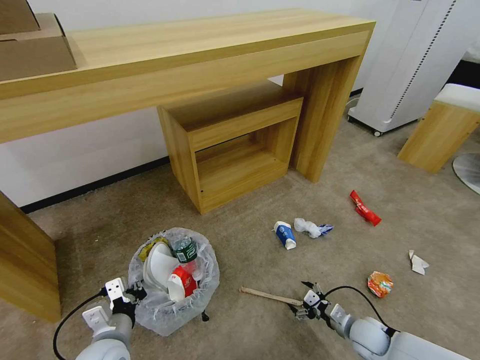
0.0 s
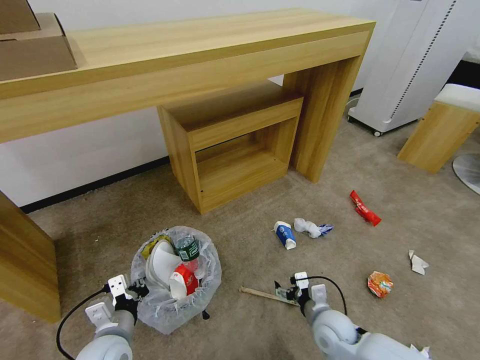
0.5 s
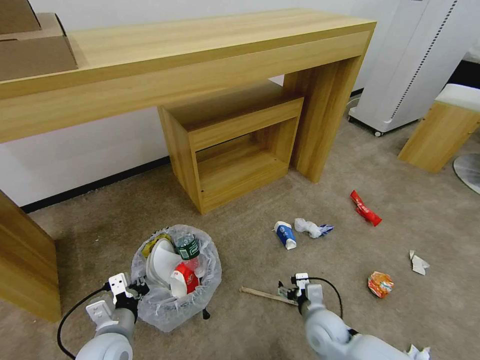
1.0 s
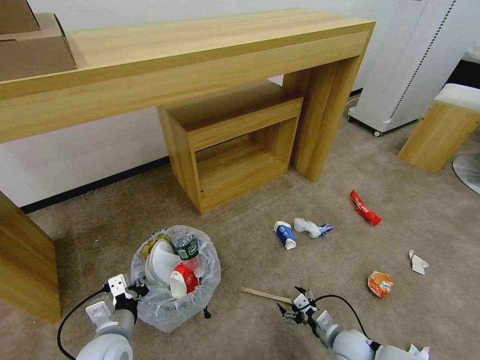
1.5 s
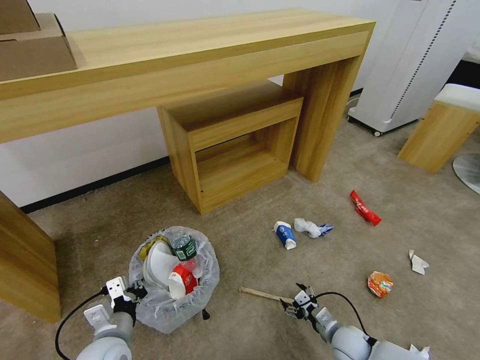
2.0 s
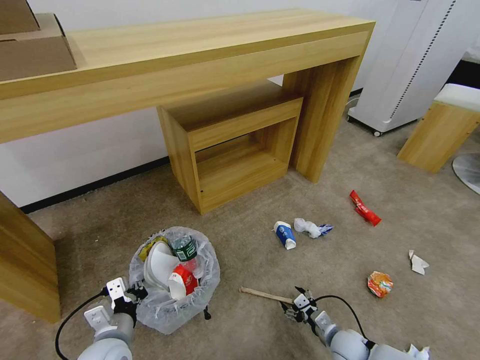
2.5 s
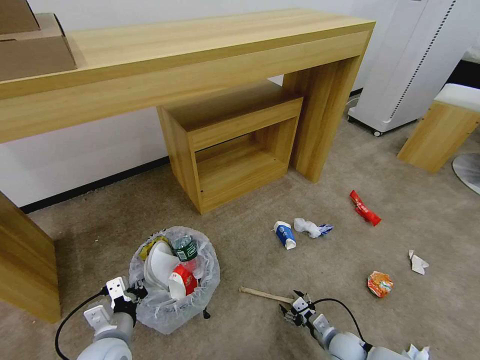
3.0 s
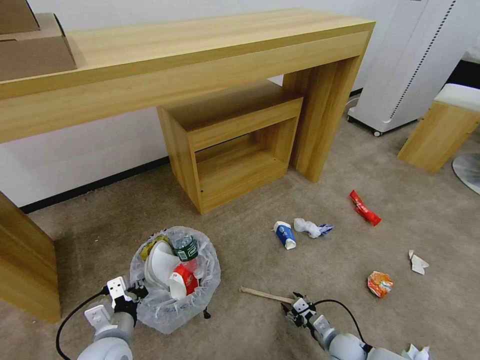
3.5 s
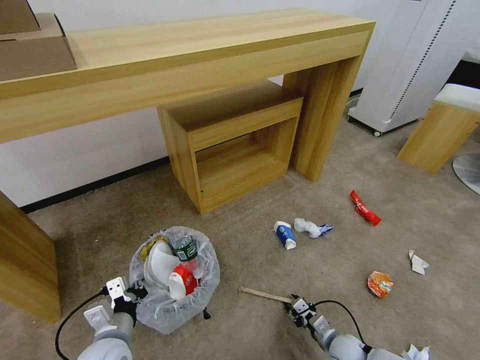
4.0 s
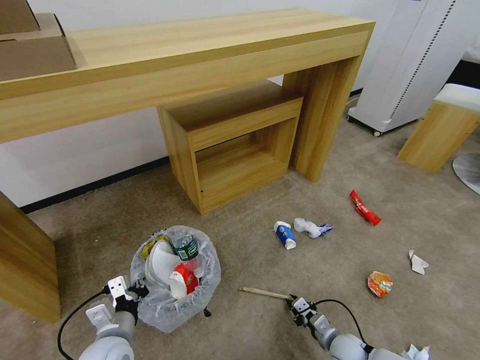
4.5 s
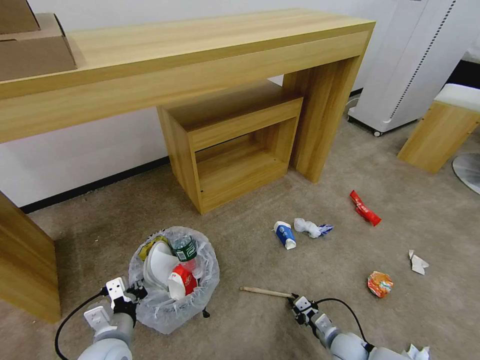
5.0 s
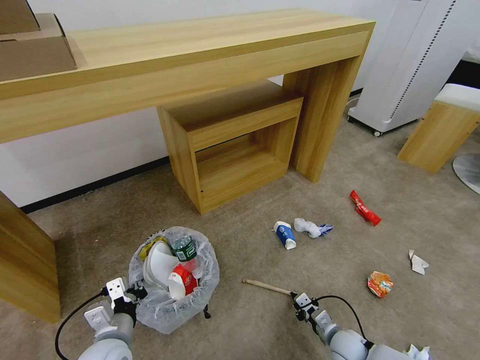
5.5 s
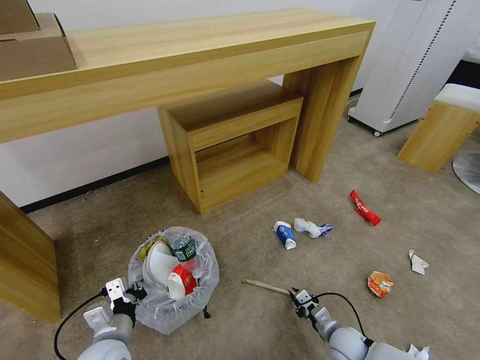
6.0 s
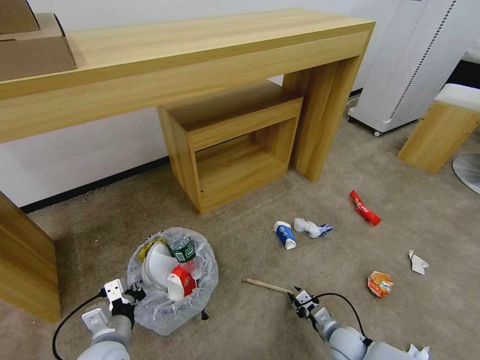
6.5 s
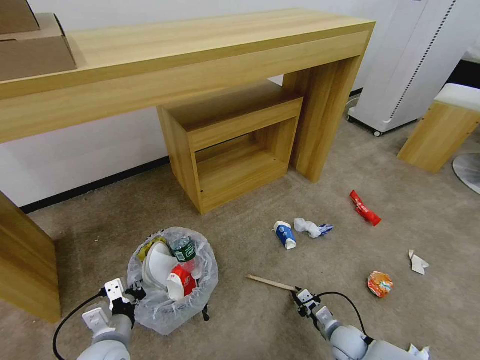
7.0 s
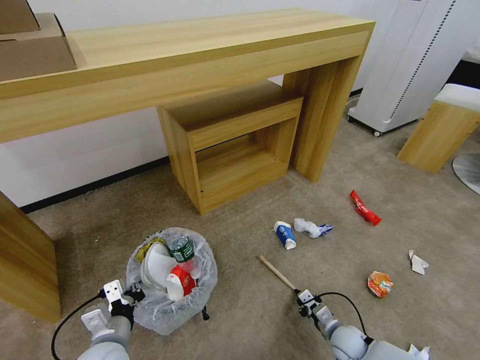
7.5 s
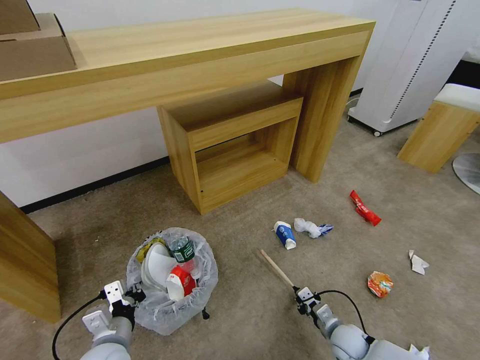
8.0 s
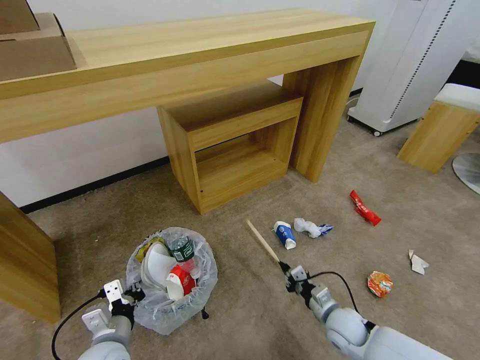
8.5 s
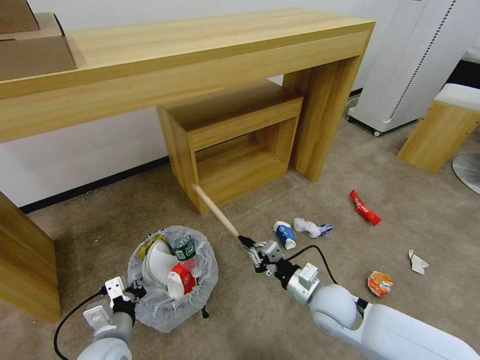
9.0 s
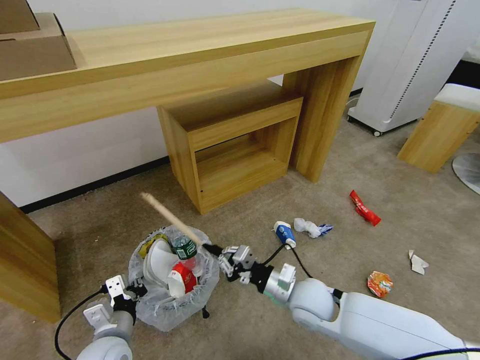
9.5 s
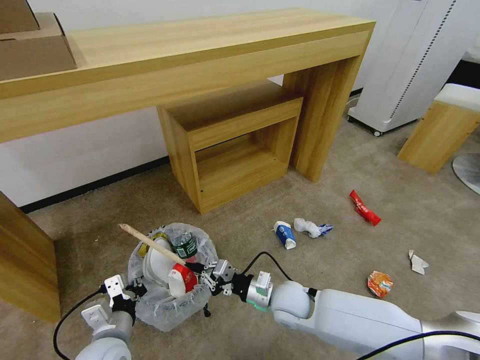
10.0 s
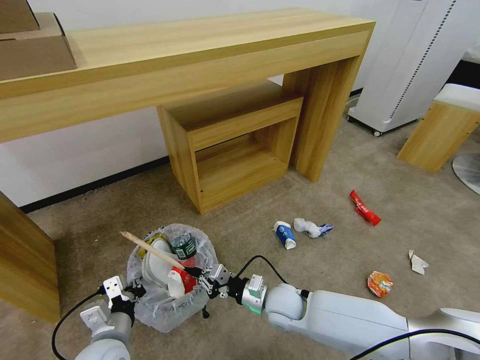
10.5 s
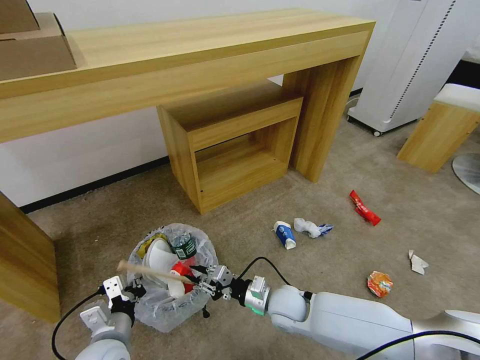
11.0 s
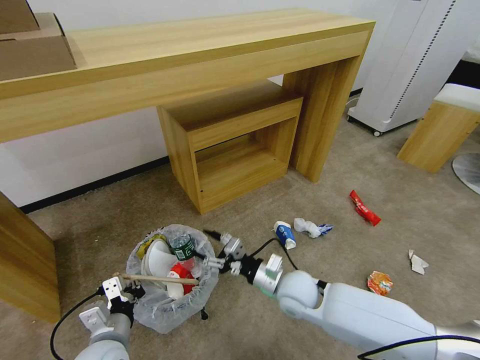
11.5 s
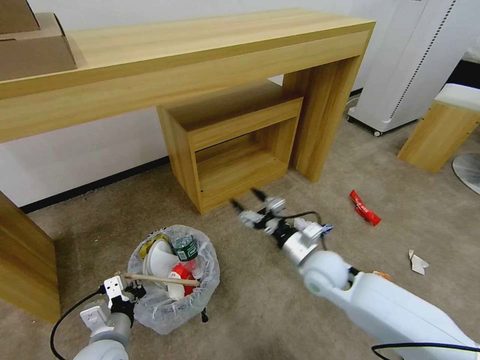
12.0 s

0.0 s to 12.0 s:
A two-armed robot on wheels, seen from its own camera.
Task of the whole recording: Pick up the trash bin and place the garbage on the floor into it.
2.0 to 4.0 s: The right gripper closes up.
4.0 to 8.0 s: The grippers make only small movements.
8.0 to 10.0 s: The right gripper is displaced to the left and upward by some 25 cm.
10.0 to 12.0 s: The right gripper goes about 10 cm upward and to the right, and opens its fingers.

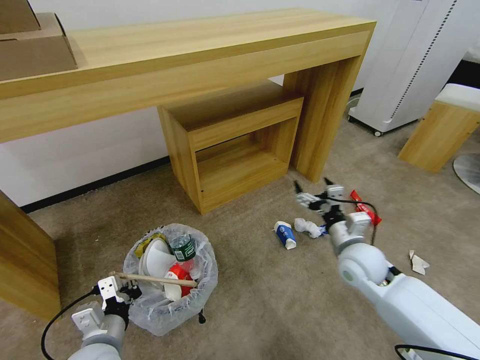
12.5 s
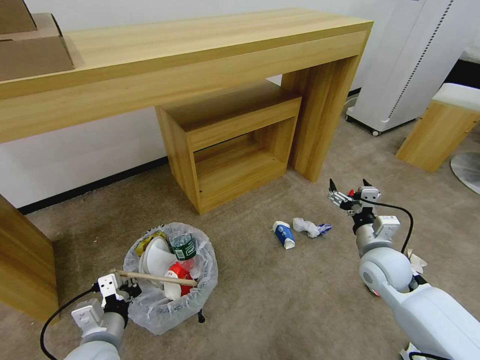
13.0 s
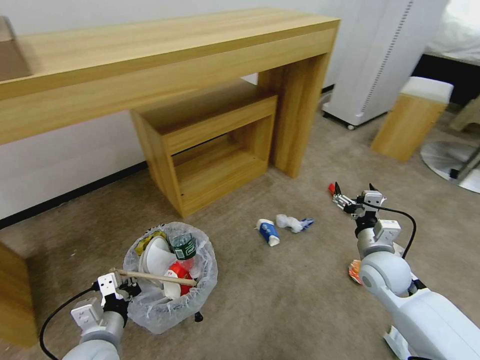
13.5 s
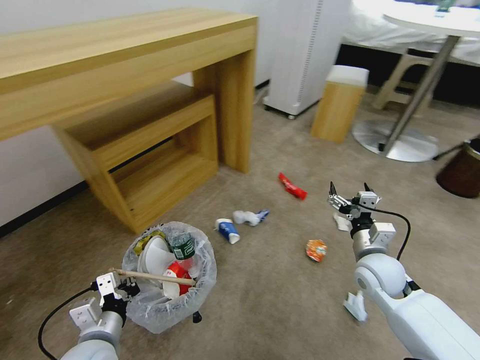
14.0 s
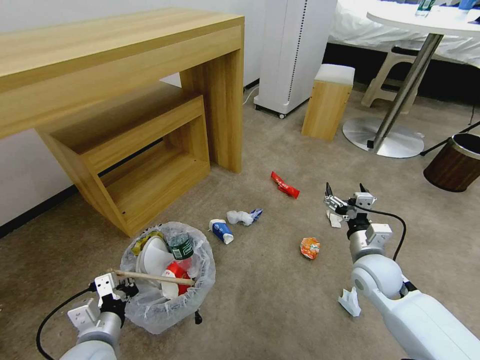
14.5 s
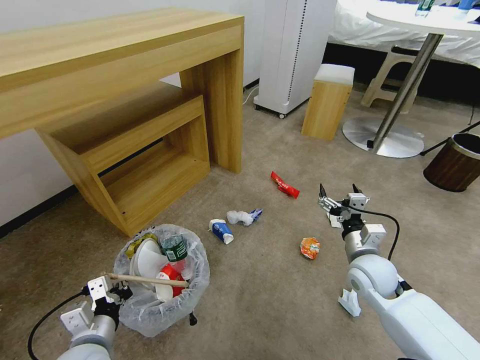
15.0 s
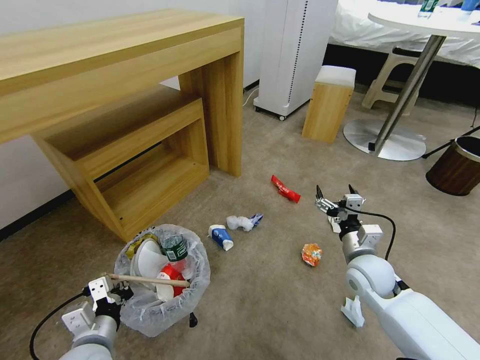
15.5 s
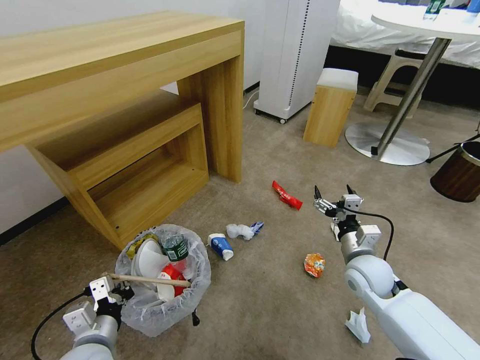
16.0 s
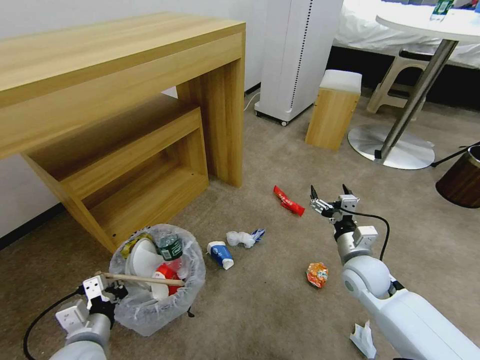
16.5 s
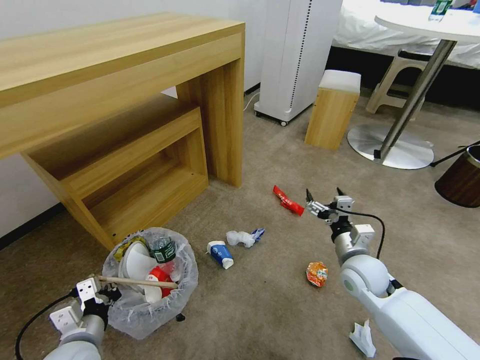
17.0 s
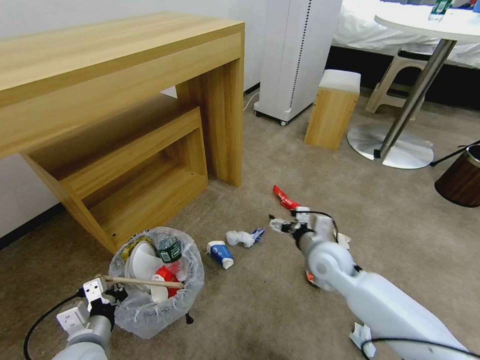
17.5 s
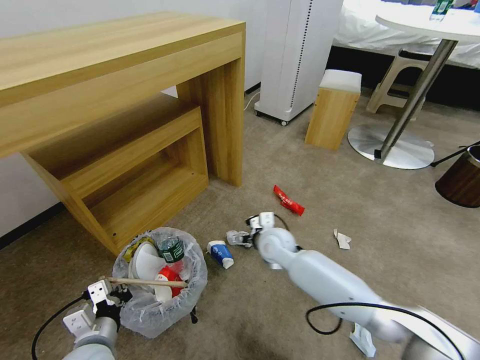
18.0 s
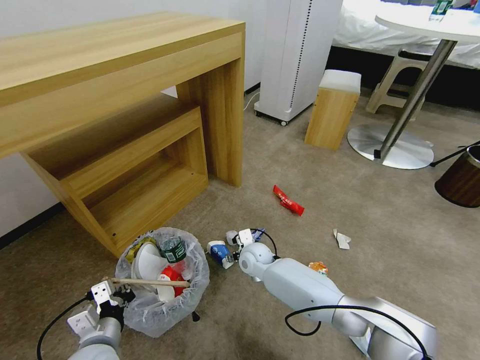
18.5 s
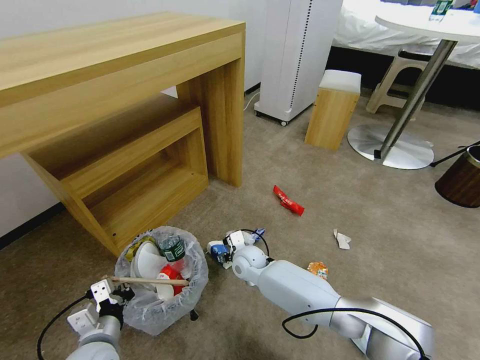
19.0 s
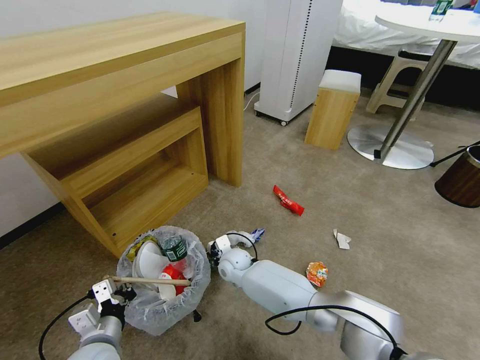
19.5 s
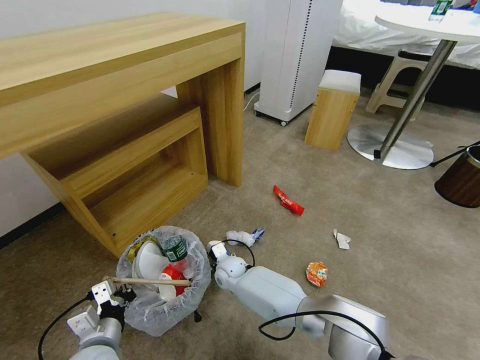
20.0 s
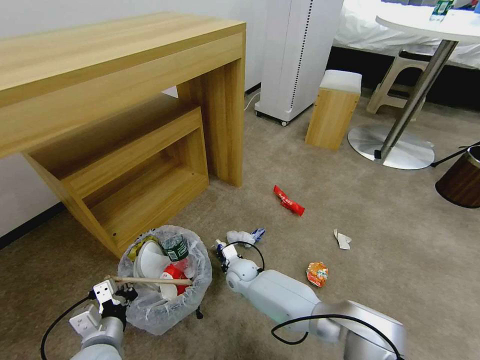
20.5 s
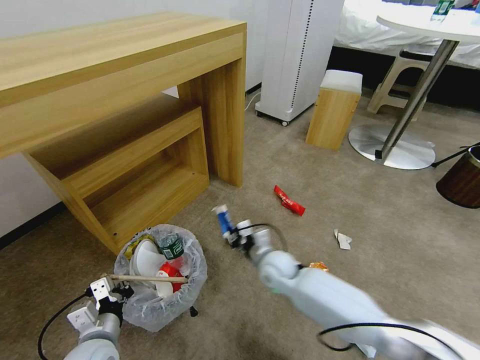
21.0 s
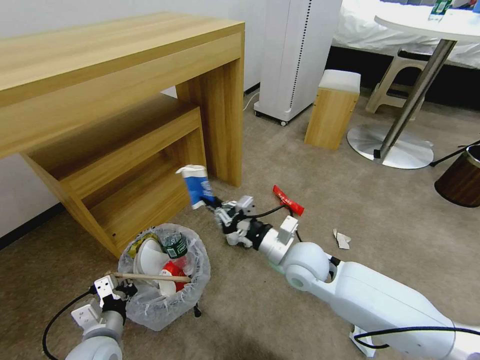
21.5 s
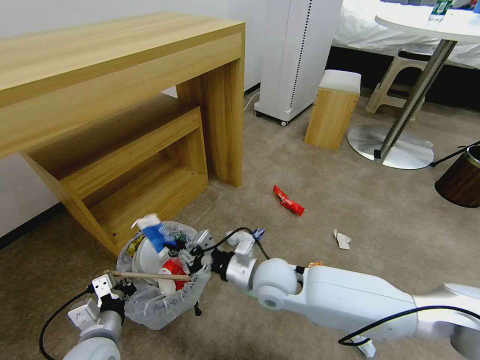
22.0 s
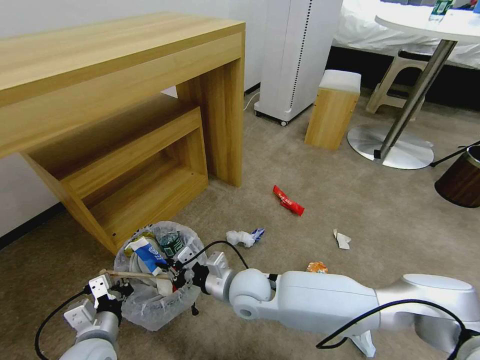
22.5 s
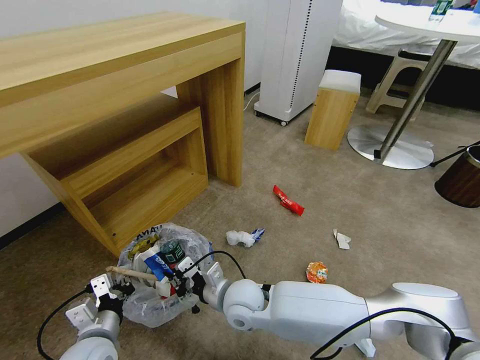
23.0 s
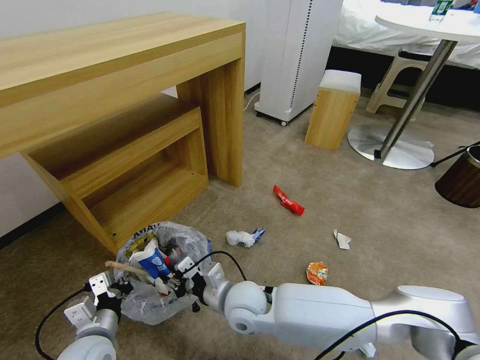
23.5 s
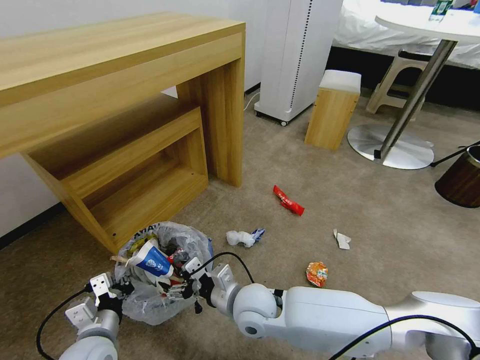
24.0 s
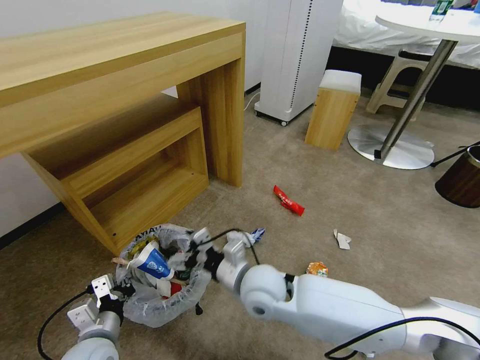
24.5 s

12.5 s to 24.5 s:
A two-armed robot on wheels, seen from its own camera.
Task of the whole recording: Pick up the trash bin and place the garbage on the floor into it.
16.5 to 18.5 s: The right gripper shifts some 25 cm to the left and forward.
18.5 to 20.5 s: The right gripper travels downward by some 5 cm, and closes up.
20.5 to 22.5 s: The right gripper shifts approximately 20 cm upward and backward.
22.5 to 24.5 s: The right gripper changes place by approximately 5 cm, and opens.

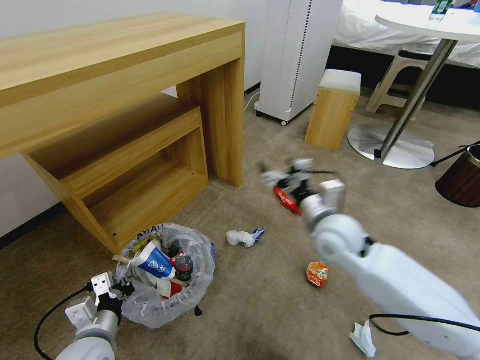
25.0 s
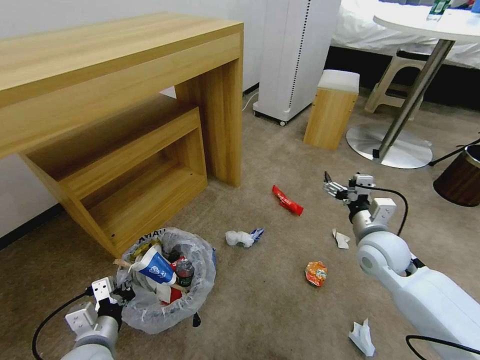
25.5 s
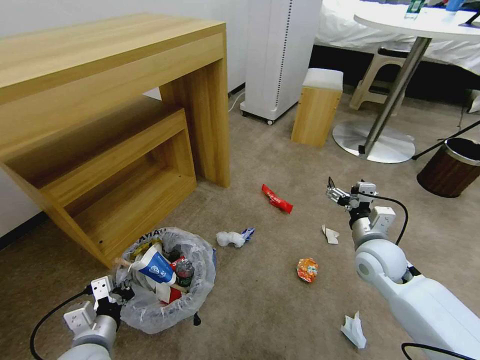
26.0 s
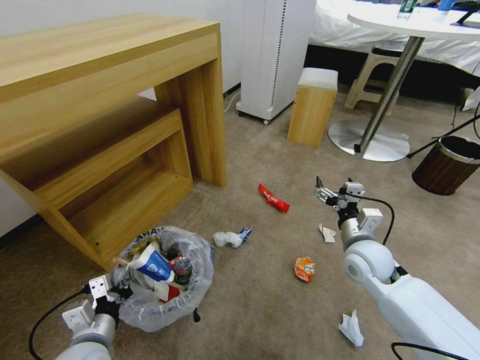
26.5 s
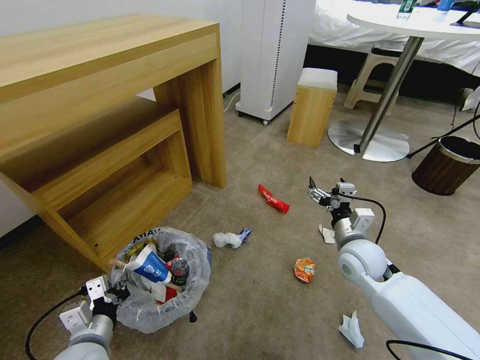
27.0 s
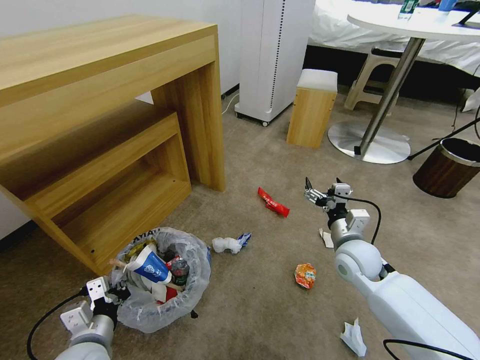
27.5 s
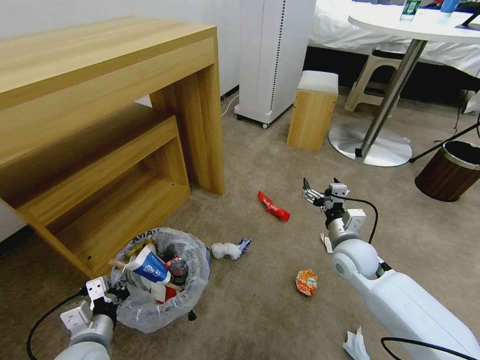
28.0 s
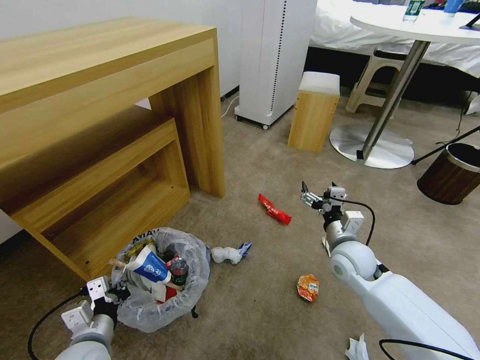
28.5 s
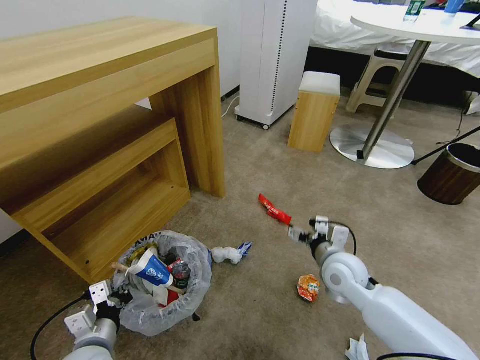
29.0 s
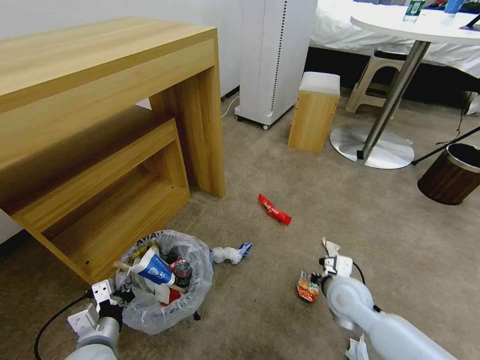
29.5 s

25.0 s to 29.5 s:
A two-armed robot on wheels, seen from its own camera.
Task of the whole recording: Pick up the trash bin and place the garbage on the floor into it.
25.0 to 27.0 s: The right gripper goes approximately 10 cm downward and to the right.
27.0 to 29.5 s: The right gripper goes some 10 cm downward and backward.
